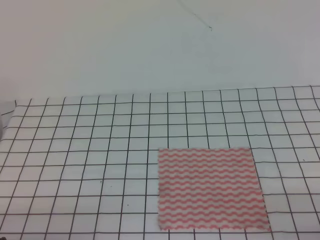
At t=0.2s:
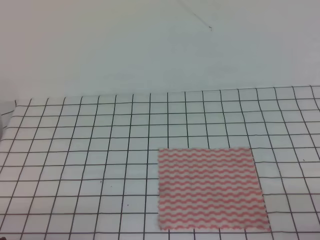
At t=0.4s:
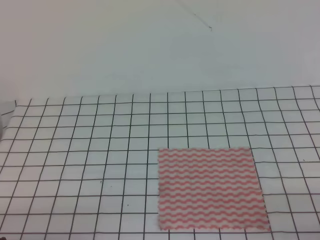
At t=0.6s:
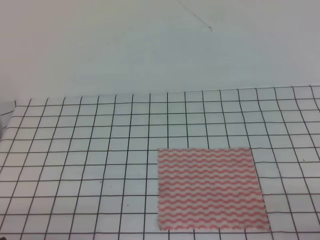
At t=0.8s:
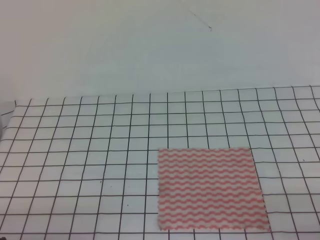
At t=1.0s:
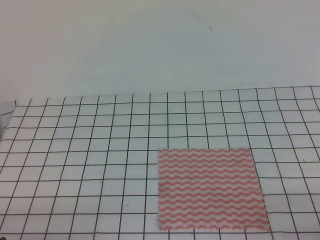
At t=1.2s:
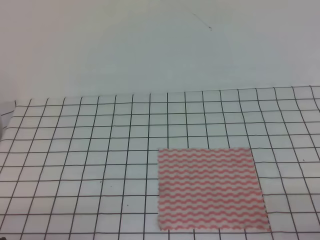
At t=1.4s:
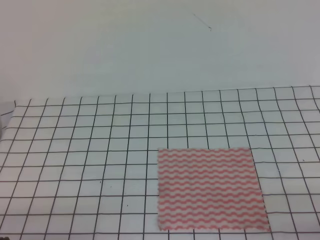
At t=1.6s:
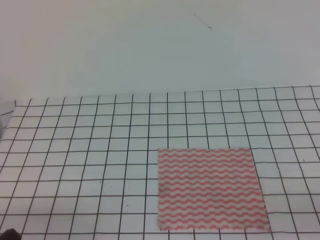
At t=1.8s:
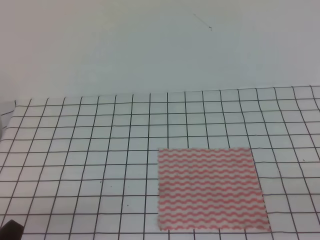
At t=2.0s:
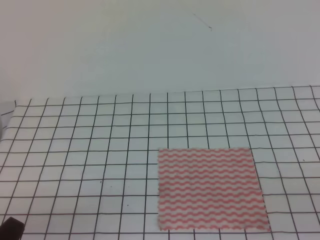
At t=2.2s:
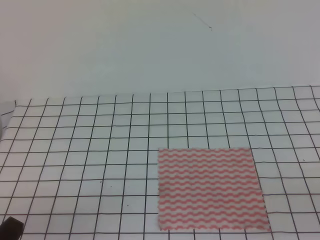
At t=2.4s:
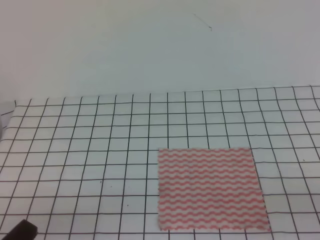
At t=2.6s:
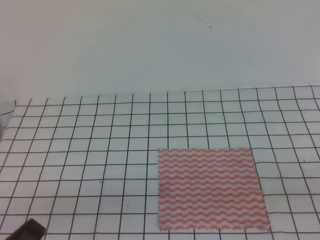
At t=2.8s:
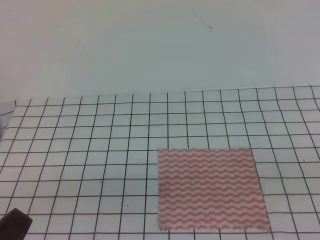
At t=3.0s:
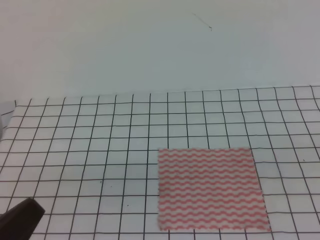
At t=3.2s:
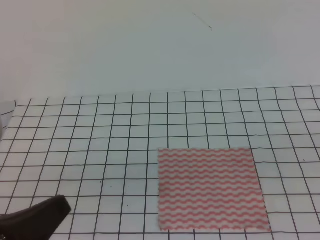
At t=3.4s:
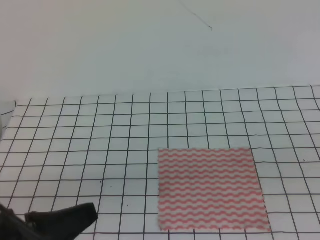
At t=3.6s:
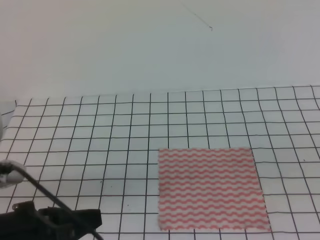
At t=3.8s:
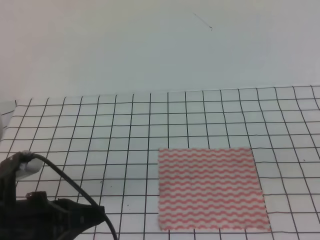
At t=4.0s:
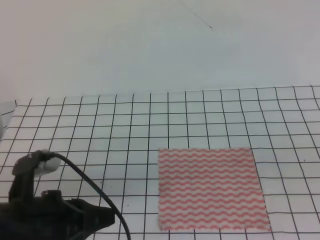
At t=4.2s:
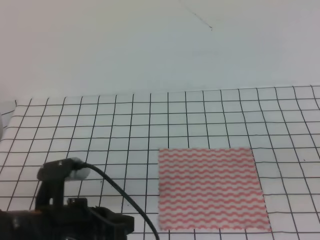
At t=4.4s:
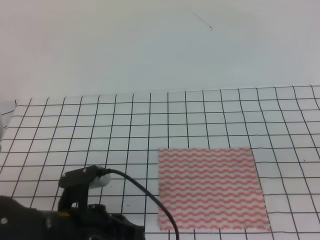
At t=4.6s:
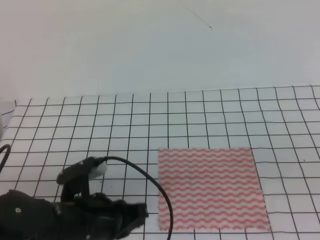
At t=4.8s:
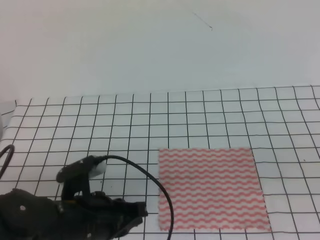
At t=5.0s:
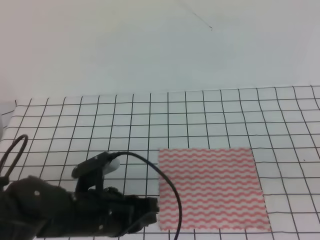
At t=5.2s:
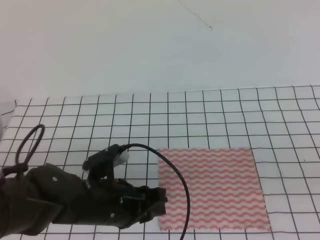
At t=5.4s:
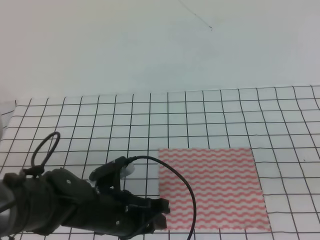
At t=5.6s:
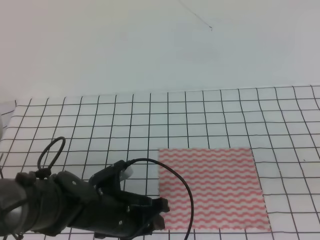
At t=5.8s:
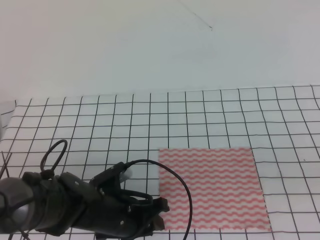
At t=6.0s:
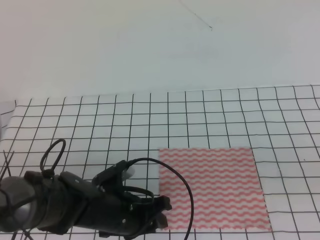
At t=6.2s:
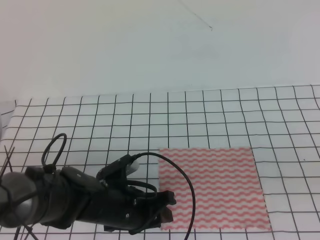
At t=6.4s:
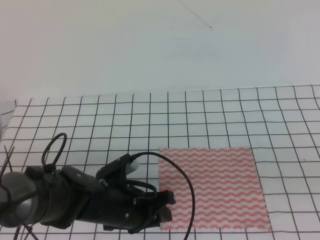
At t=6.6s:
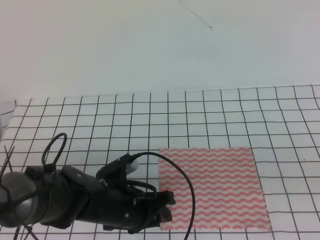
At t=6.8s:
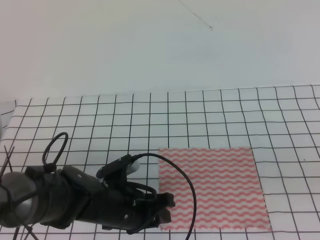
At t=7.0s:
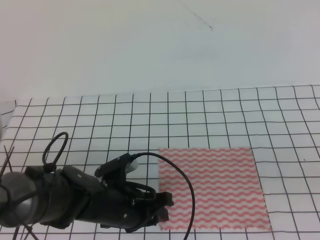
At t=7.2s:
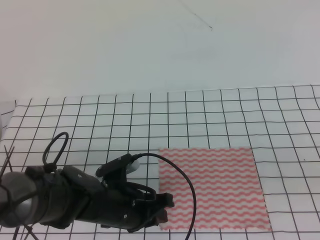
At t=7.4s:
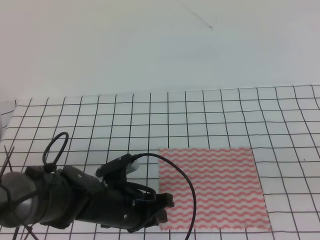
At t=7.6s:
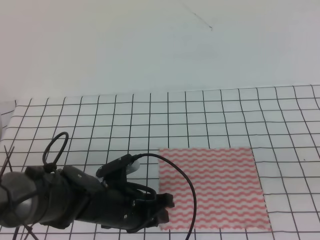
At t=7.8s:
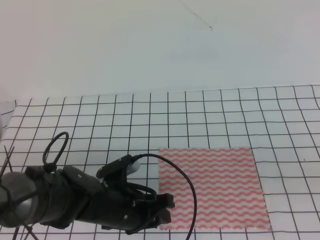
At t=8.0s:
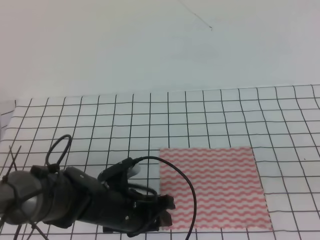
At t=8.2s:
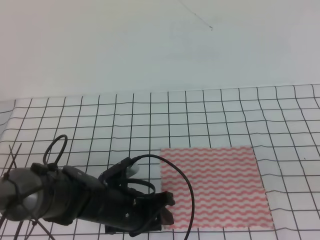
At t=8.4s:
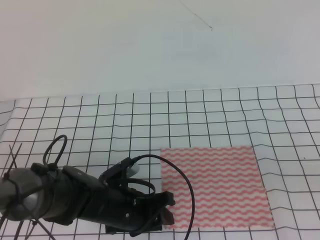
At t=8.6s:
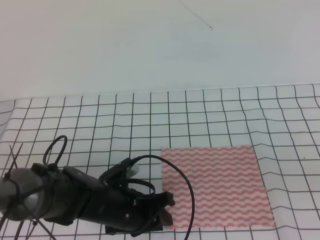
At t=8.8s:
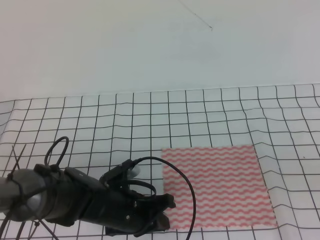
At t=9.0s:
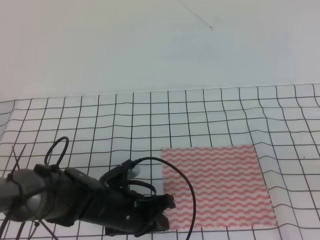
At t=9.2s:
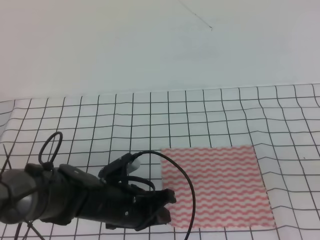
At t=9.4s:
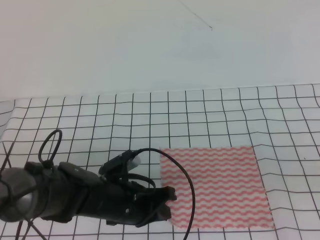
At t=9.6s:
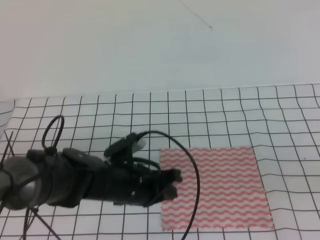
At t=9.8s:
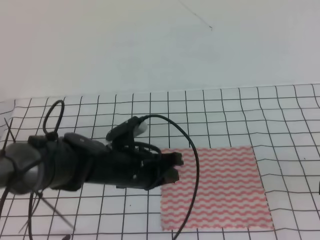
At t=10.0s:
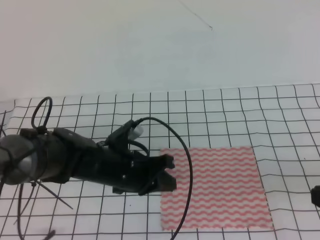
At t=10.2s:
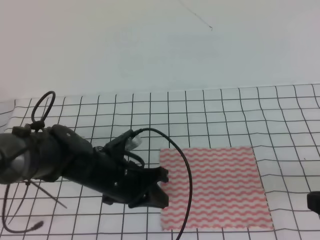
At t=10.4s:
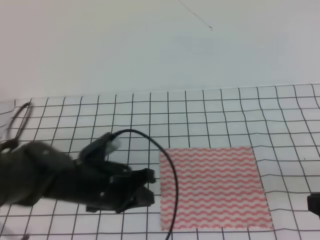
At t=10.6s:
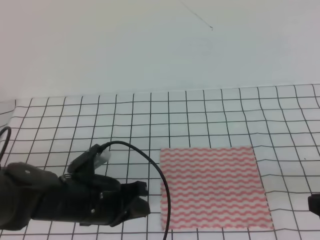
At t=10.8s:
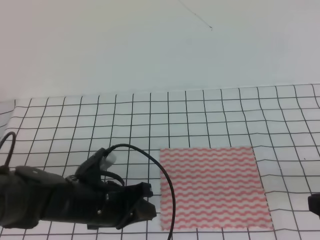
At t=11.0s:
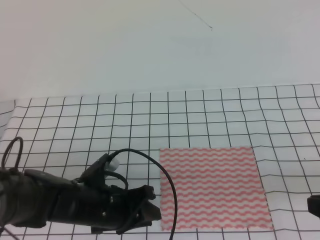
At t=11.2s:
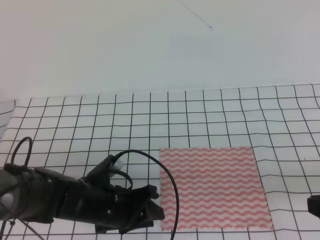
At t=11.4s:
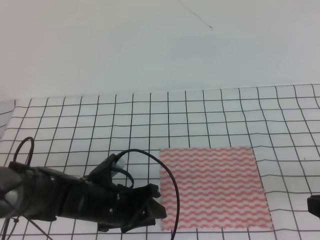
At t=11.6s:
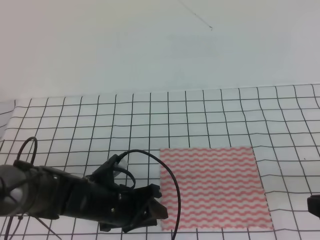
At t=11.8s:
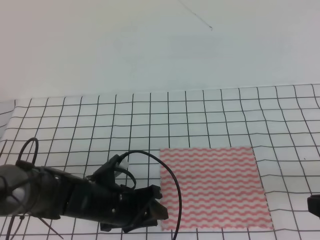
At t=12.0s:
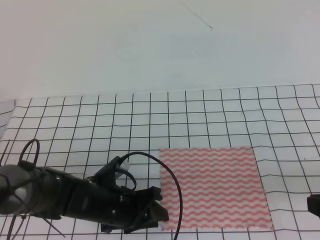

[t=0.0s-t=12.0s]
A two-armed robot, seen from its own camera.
t=1.6s to t=3.0s: The left gripper moves upward, some 10 cm.
t=3.0s to t=4.4s: The right gripper heads forward, covering roughly 5 cm. The left gripper heads forward, to the right and downward, covering roughly 15 cm.
t=4.4s to t=6.0s: The left gripper heads downward and forward, covering some 10 cm, and opens its fingers.
t=6.0s to t=7.6s: The grippers move only a little.
t=7.6s to t=9.0s: The left gripper closes its fingers.
t=9.0s to t=10.4s: The left gripper moves approximately 5 cm.
t=10.4s to t=12.0s: The left gripper goes roughly 5 cm downward, and opens up.

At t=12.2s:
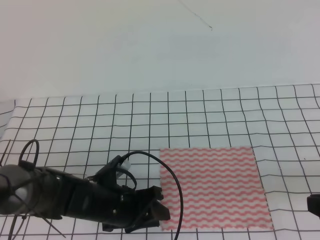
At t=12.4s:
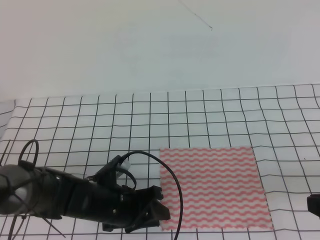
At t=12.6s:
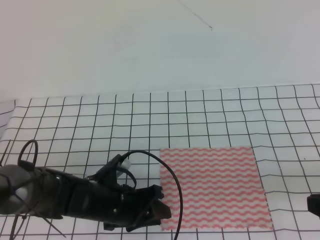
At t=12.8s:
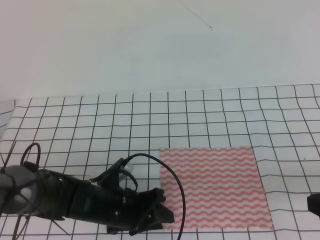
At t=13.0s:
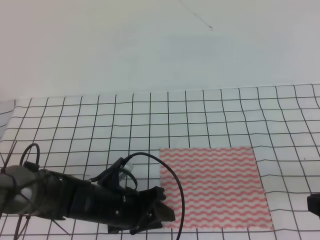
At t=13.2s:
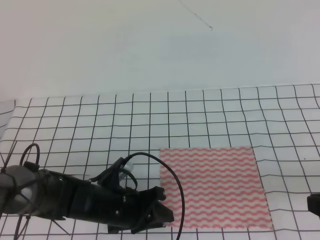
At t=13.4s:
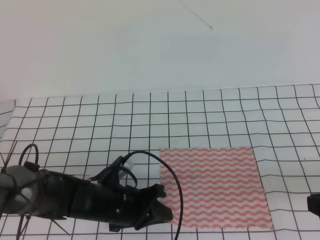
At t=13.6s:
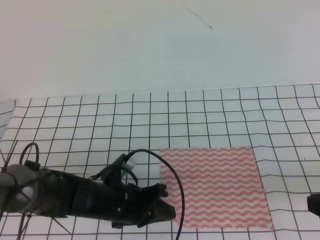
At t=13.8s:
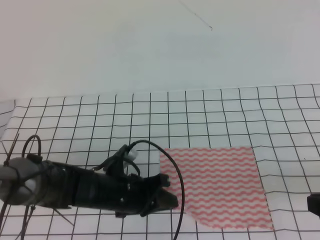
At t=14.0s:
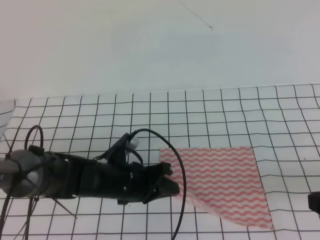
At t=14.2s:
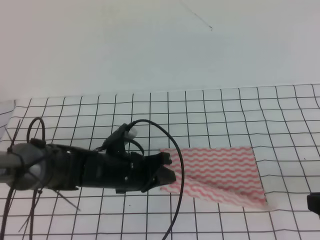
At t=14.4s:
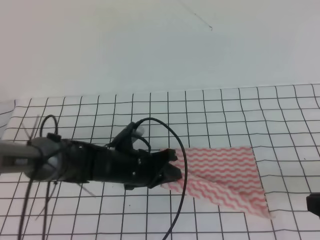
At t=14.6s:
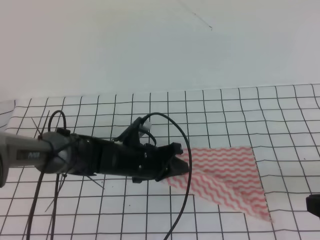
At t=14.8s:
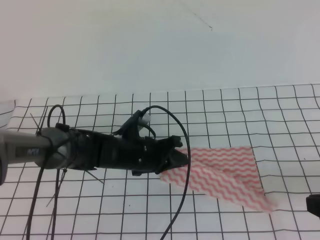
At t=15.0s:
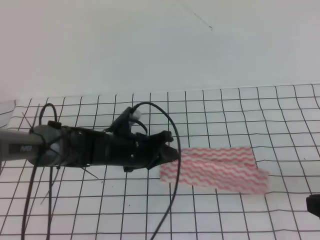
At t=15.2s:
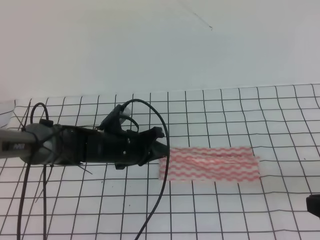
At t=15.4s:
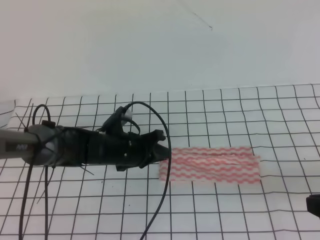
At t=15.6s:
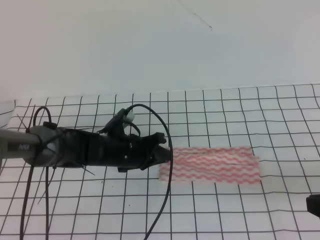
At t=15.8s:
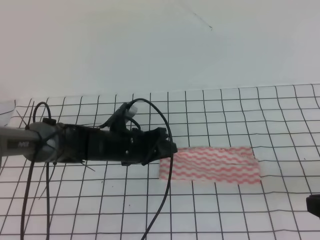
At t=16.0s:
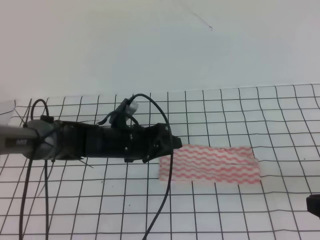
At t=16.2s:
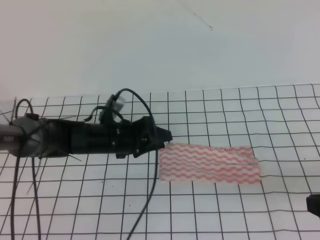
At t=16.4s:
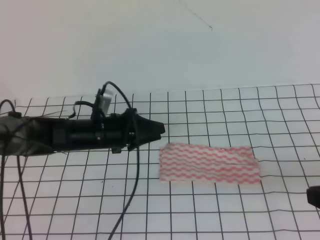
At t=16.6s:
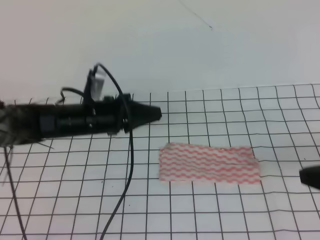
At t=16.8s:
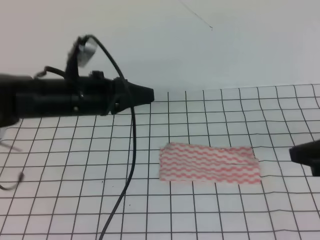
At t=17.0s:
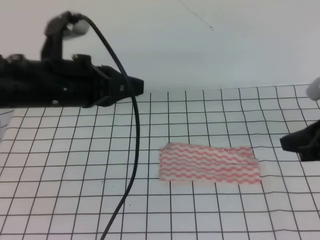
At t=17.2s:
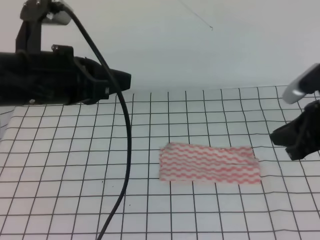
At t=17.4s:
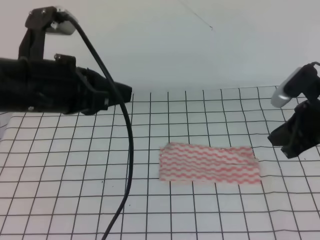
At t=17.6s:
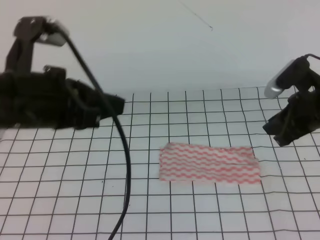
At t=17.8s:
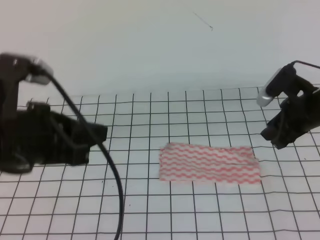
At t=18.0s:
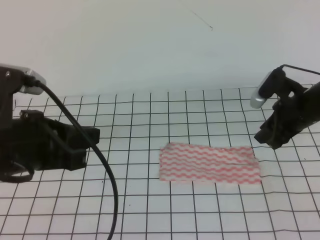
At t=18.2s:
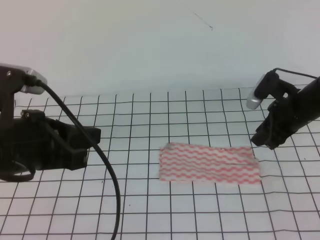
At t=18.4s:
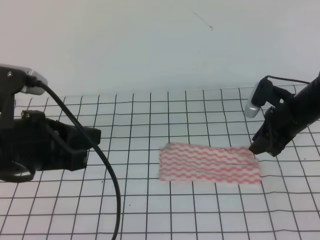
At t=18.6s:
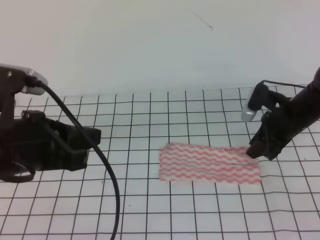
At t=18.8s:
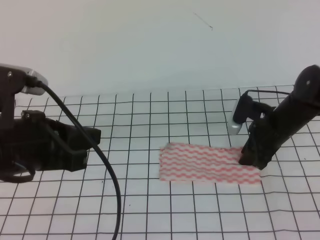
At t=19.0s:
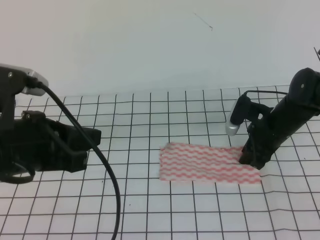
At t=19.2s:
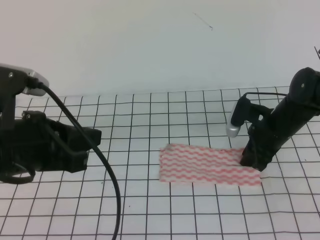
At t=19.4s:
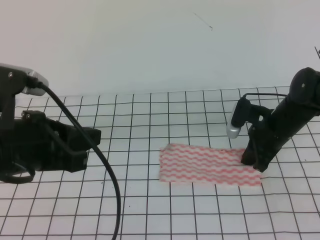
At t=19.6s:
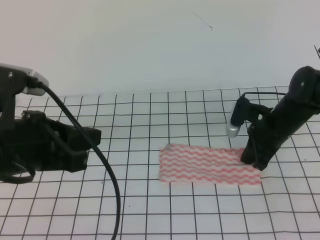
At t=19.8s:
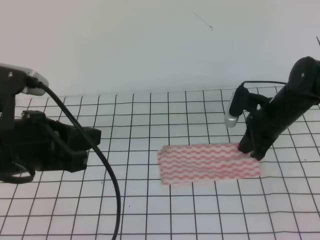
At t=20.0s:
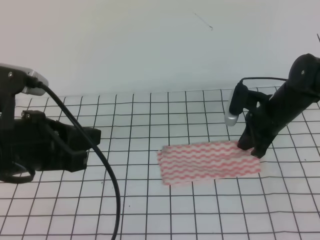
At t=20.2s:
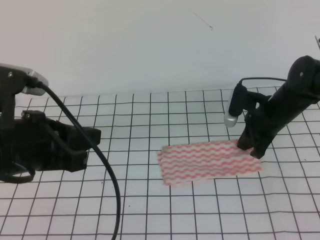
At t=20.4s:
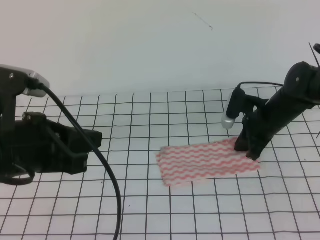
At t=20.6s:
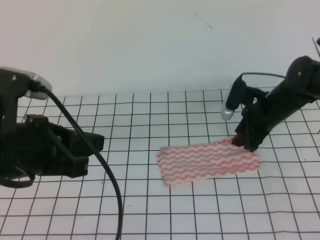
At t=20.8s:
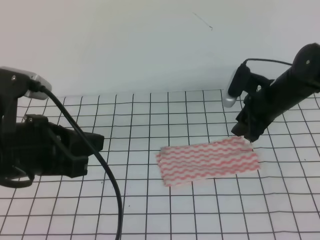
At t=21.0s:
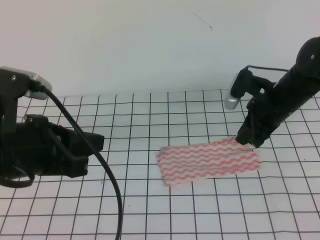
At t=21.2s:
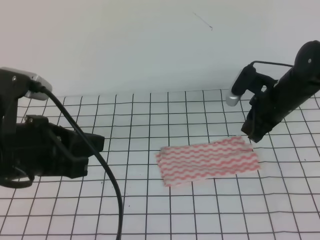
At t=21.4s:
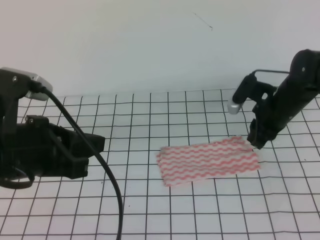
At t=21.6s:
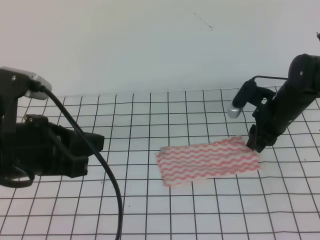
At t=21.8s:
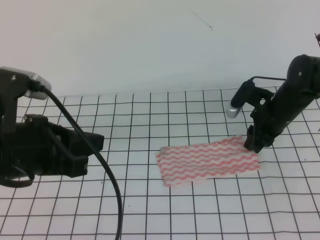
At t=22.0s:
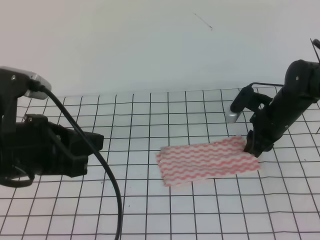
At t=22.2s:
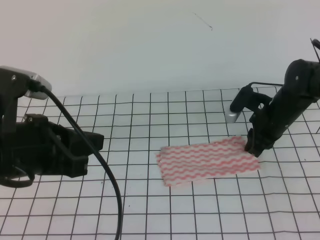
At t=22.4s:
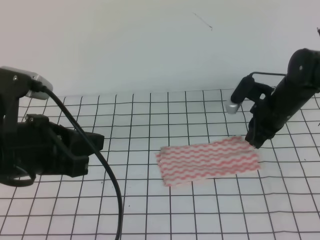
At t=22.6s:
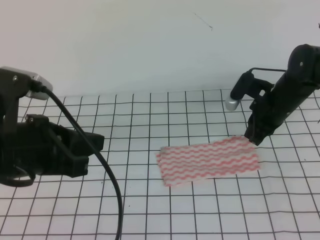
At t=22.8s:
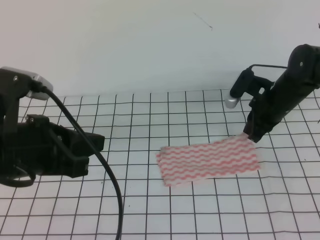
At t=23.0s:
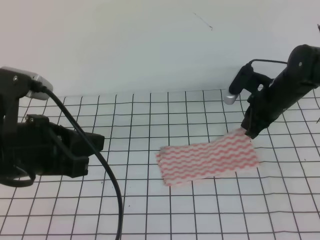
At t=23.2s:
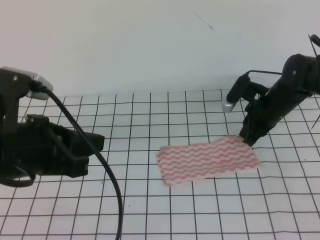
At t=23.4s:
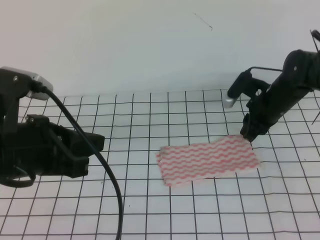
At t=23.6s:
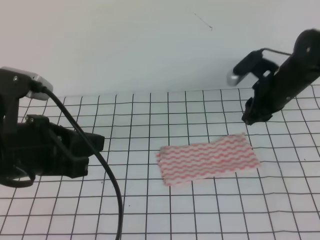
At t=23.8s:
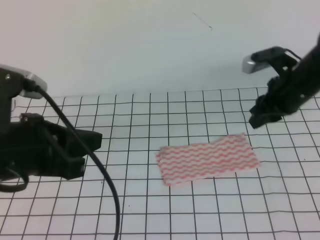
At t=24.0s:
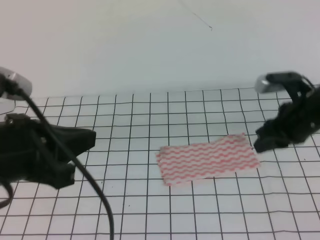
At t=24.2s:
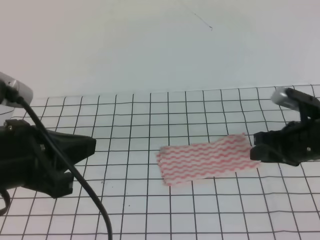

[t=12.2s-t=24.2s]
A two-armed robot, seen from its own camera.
t=12.2s to t=13.8s: The left gripper closes.
t=13.8s to t=15.2s: The left gripper is displaced forward by about 10 cm.
t=15.2s to t=16.6s: The left gripper heads upward, covering roughly 10 cm, and opens, then closes once more.
t=16.6s to t=18.2s: The left gripper goes approximately 20 cm backward and upward. The right gripper heads forward, covering some 20 cm, and opens.
t=18.2s to t=19.8s: The right gripper closes.
t=19.8s to t=21.2s: The right gripper opens.
t=21.2s to t=22.6s: The right gripper closes its fingers.
t=22.6s to t=24.2s: The right gripper heads backward, covering roughly 10 cm, and opens up.
